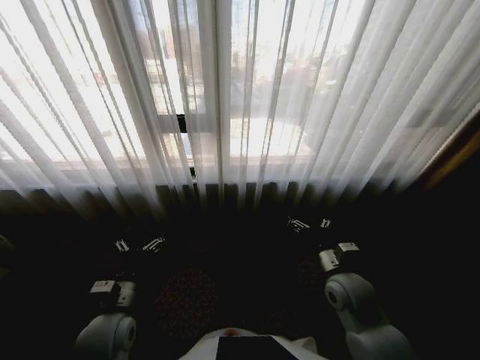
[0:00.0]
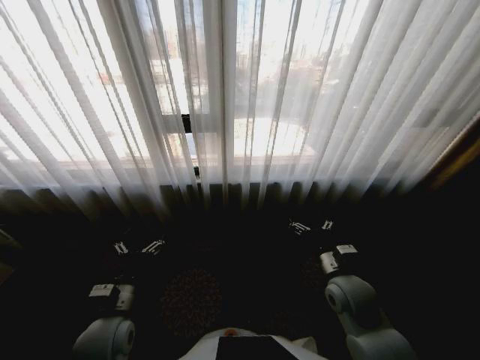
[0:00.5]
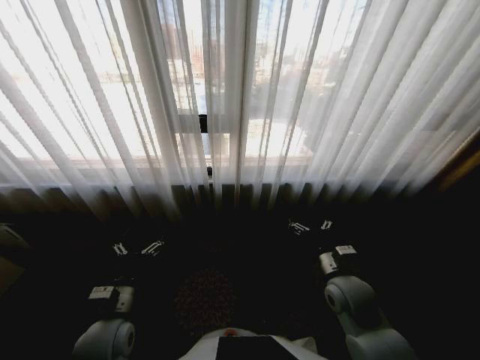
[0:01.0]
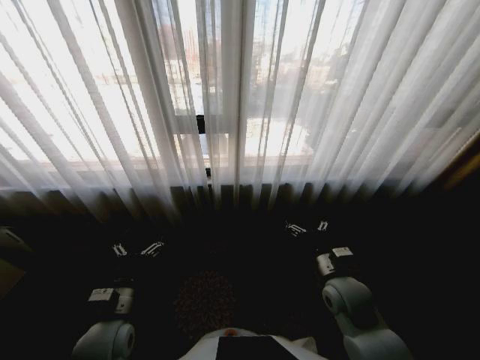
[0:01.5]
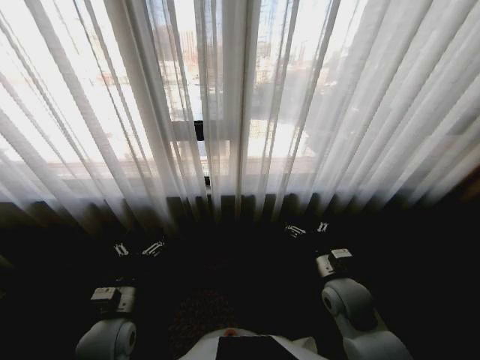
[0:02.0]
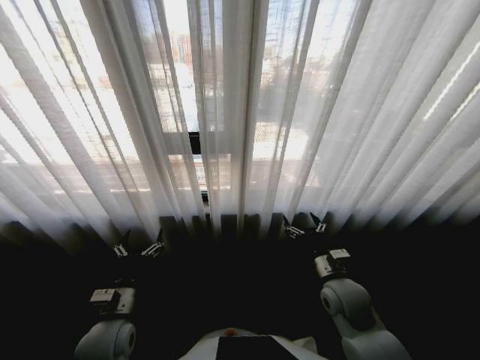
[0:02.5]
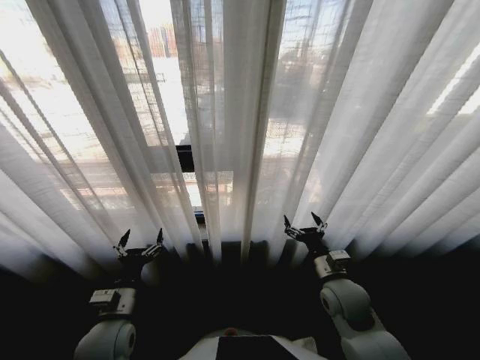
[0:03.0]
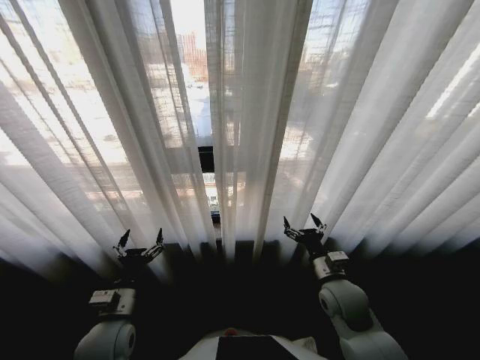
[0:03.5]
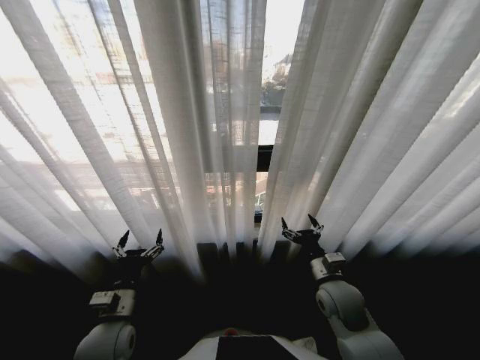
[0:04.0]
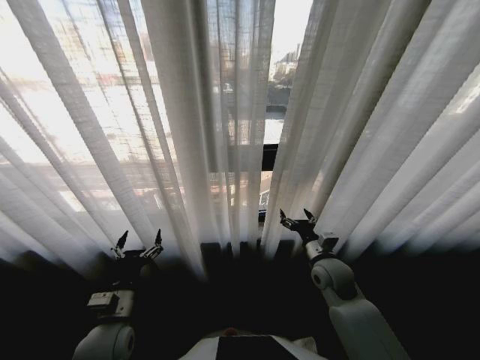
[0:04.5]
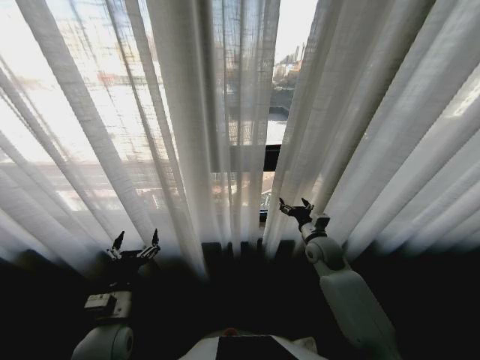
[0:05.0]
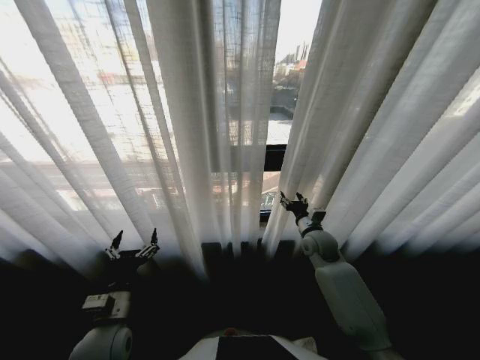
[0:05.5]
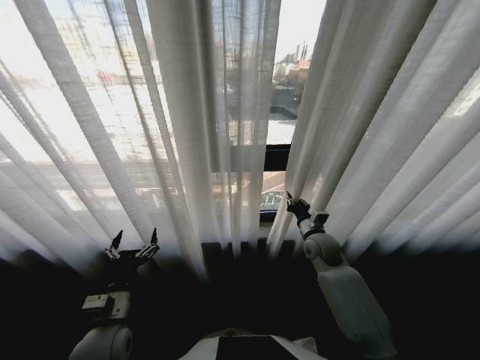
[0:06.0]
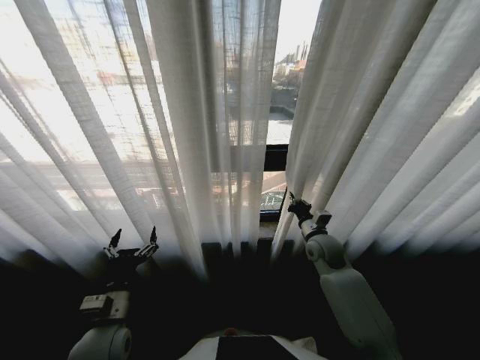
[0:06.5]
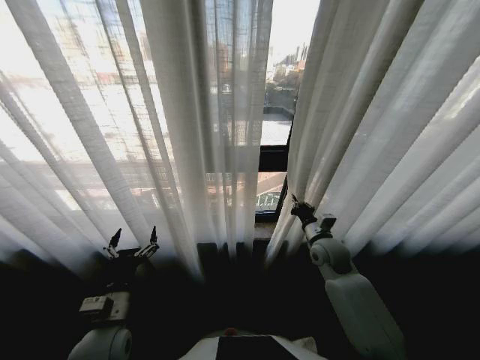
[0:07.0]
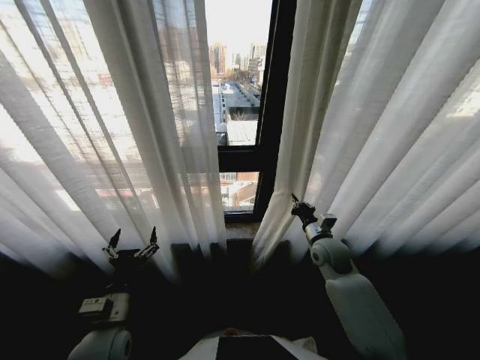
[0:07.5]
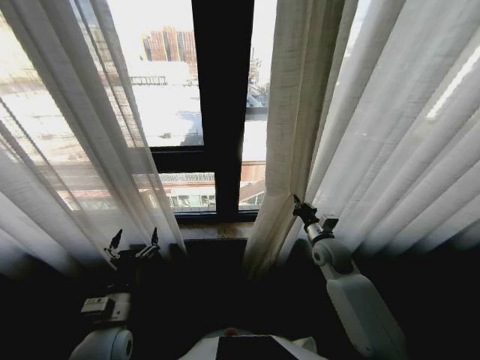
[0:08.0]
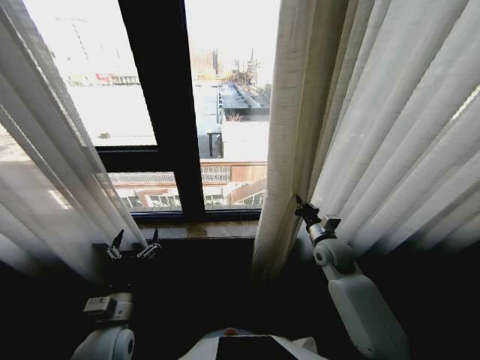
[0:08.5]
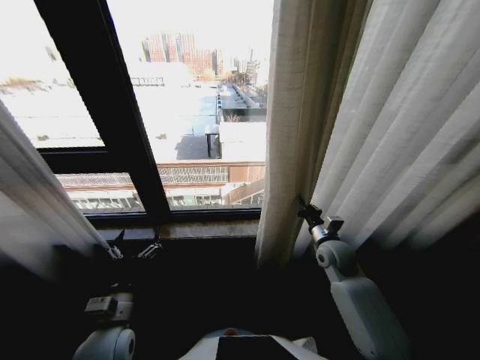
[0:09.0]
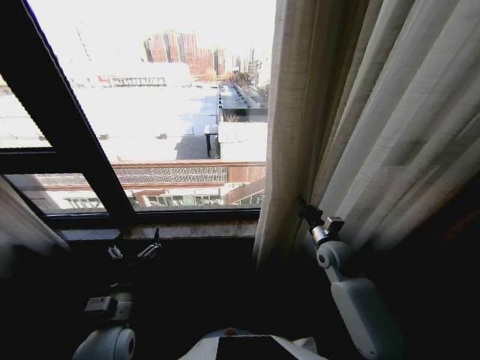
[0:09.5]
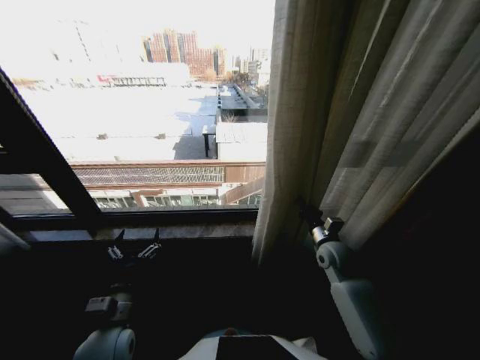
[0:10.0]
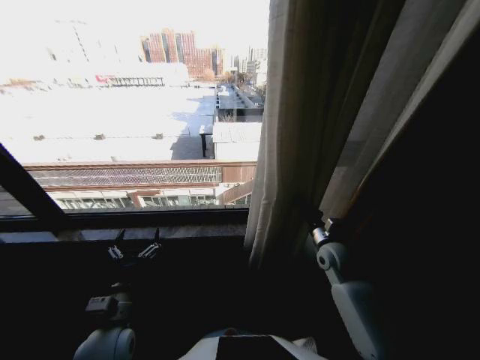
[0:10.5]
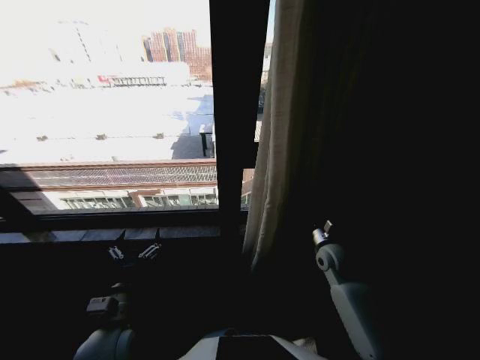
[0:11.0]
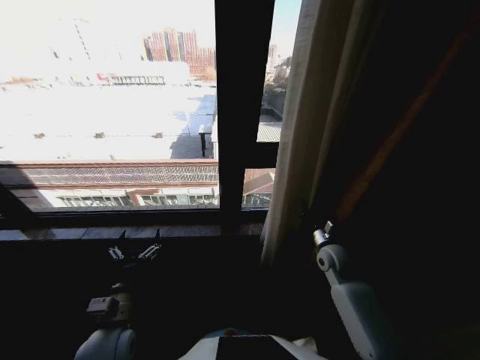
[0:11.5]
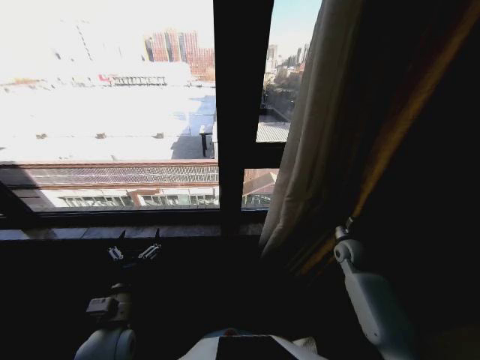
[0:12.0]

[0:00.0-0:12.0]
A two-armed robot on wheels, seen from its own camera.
Task of the whole recording: Open the curtains by pulling them apart, changing their state from closed to fully open.
0:04.0 to 0:06.0: The right gripper moves forward, approximately 15 cm, and closes its fingers.
0:10.0 to 0:12.0: The right gripper shifts roughly 10 cm to the right.

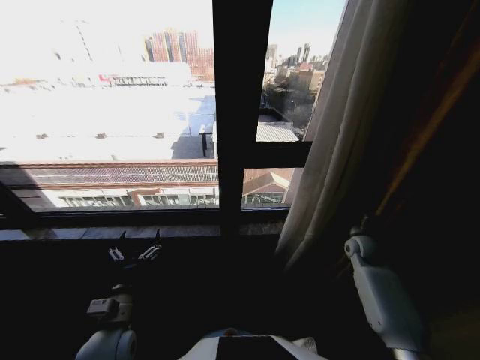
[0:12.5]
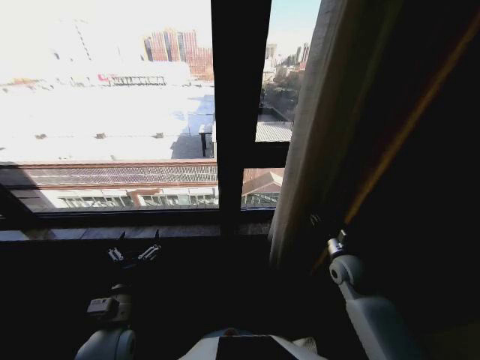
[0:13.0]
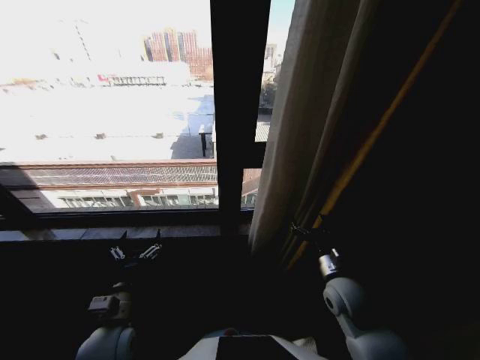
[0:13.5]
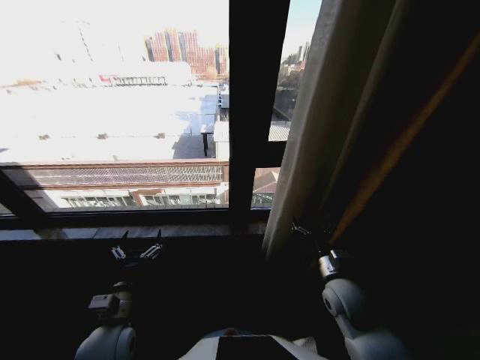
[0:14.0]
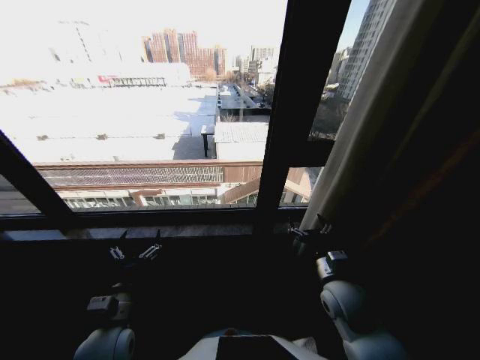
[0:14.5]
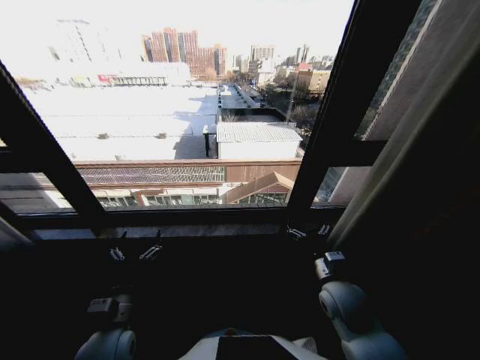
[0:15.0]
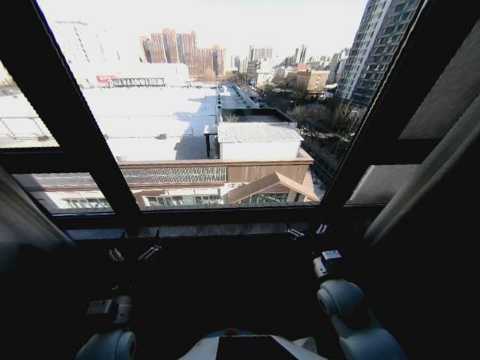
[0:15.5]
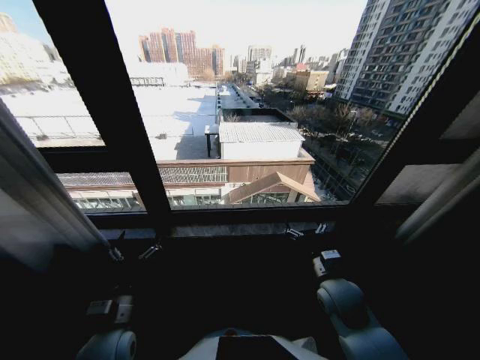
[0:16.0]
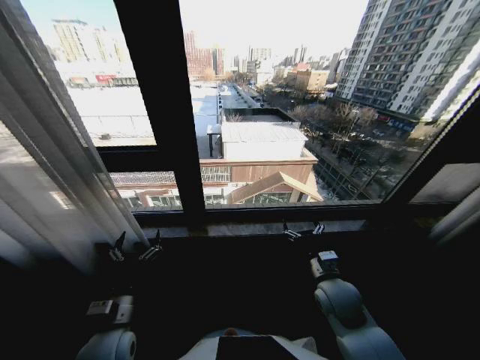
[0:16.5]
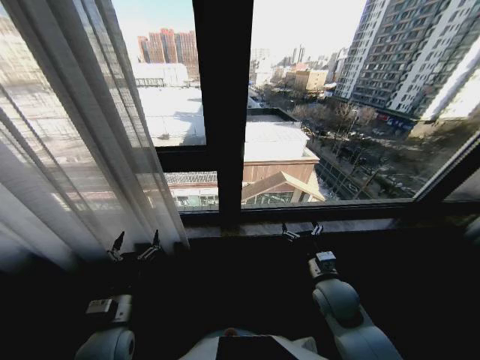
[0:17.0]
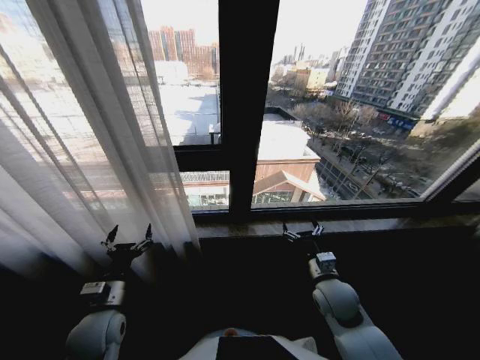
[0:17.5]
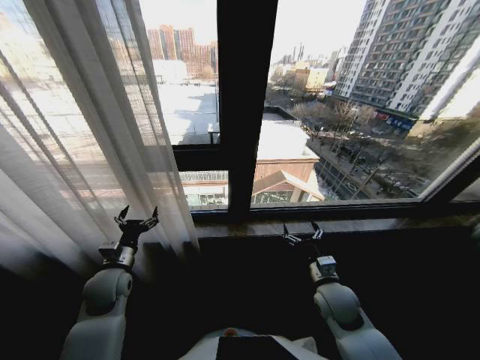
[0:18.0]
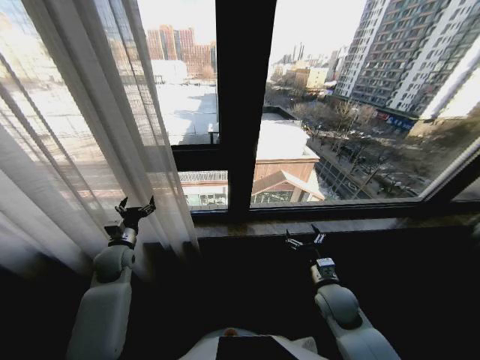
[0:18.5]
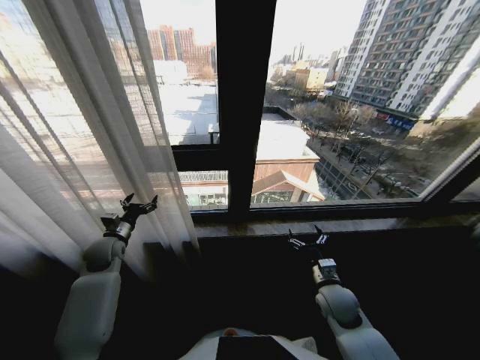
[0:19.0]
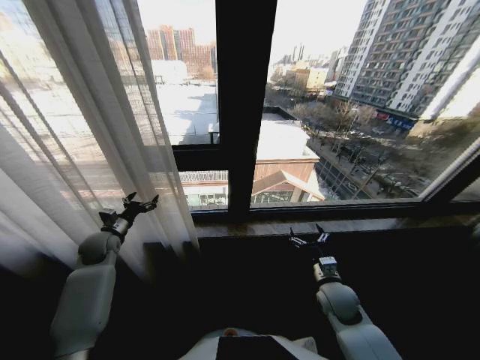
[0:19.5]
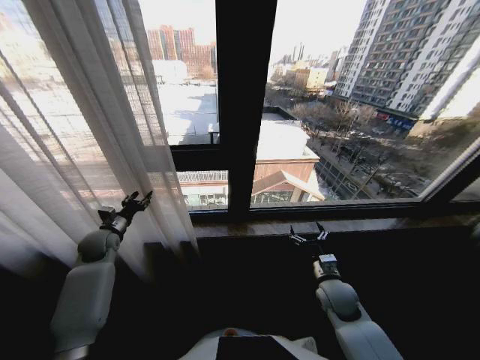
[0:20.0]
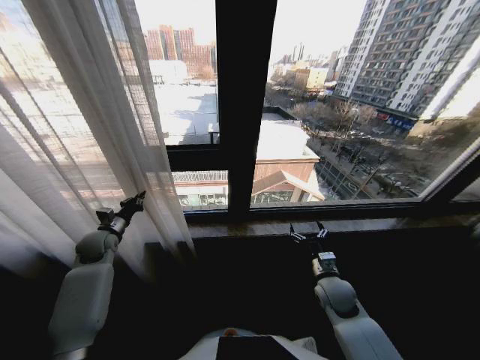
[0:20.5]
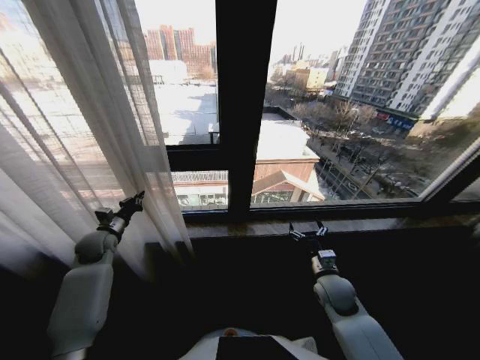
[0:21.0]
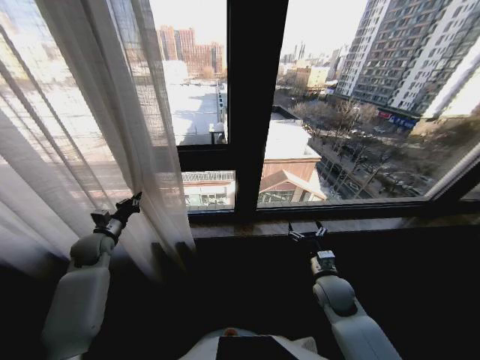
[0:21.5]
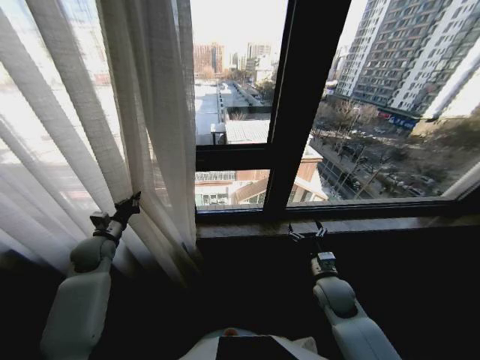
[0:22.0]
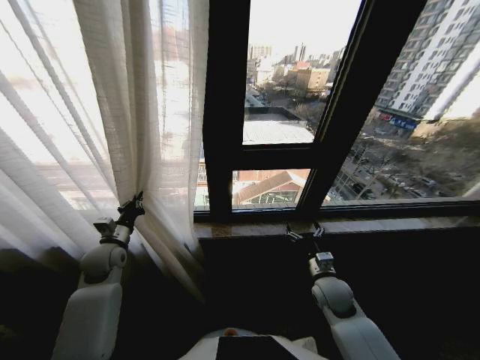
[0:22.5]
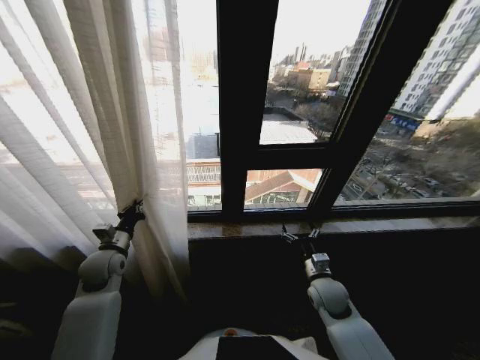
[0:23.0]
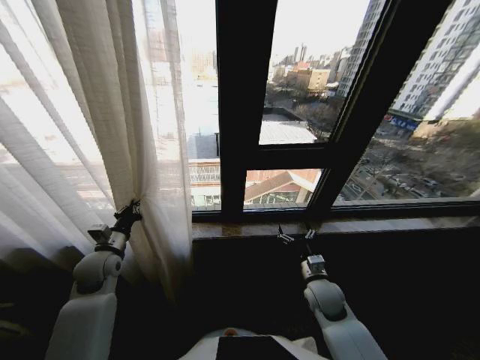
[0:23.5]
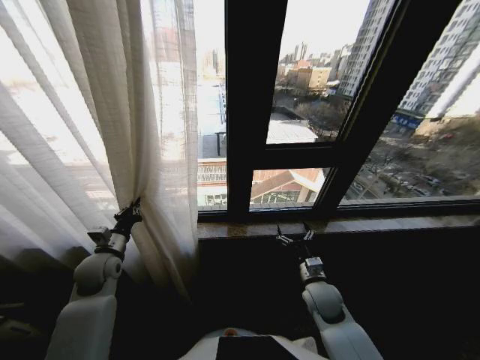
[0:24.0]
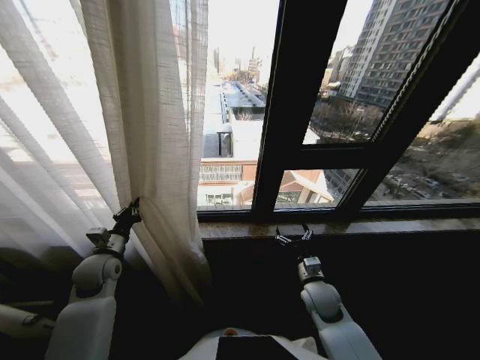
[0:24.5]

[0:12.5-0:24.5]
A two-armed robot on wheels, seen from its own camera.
Task of the whole recording: Open the curtains by pulling them apart, changing their state from closed to fully open.
0:12.5 to 0:14.5: The right gripper shifts approximately 25 cm to the left and backward, and opens up.
0:16.5 to 0:18.5: The right gripper moves some 5 cm; the left gripper is displaced forward by about 20 cm.
0:18.5 to 0:20.5: The left gripper moves to the left, roughly 5 cm, and closes.
0:20.5 to 0:22.5: The left gripper travels to the right and backward by roughly 10 cm.

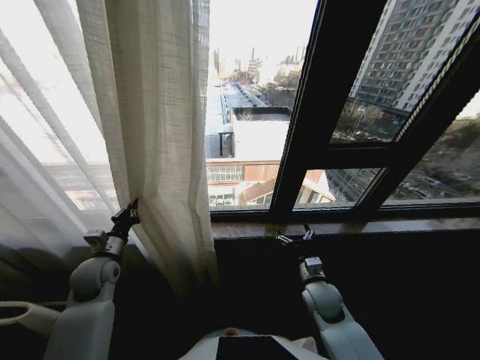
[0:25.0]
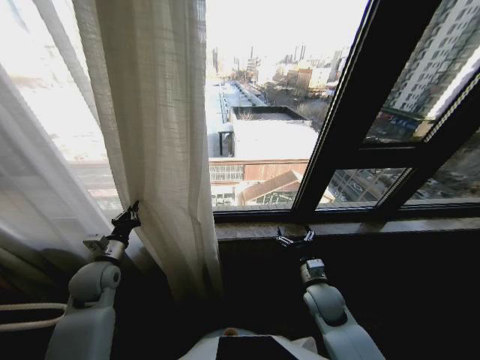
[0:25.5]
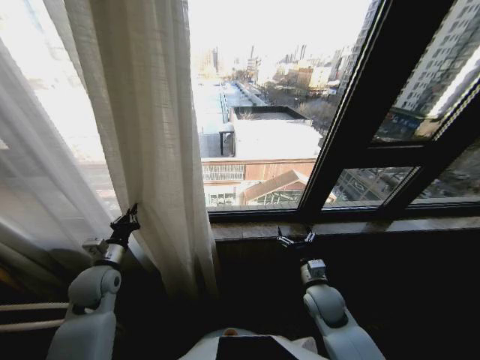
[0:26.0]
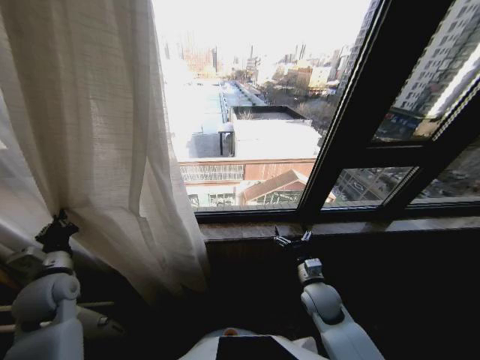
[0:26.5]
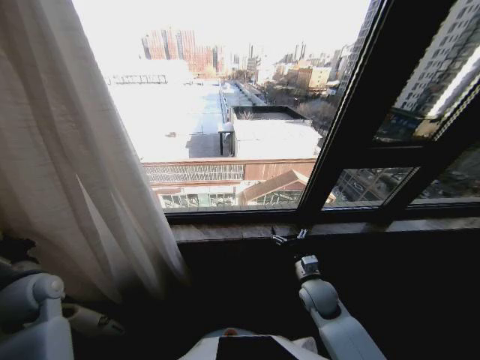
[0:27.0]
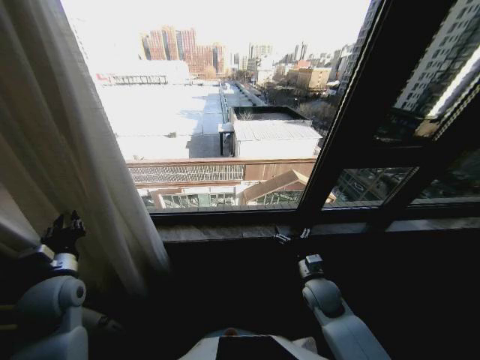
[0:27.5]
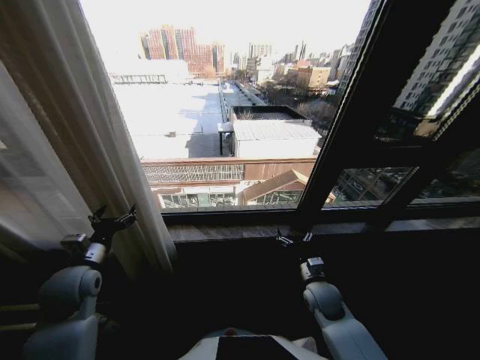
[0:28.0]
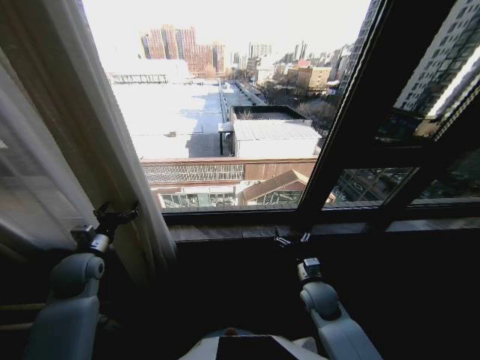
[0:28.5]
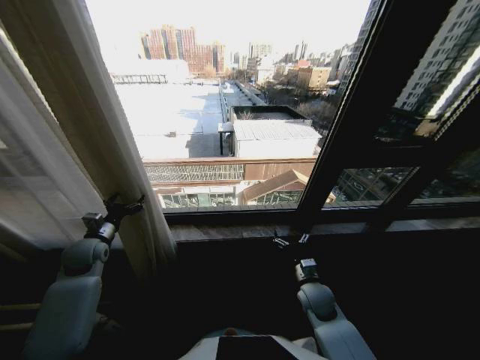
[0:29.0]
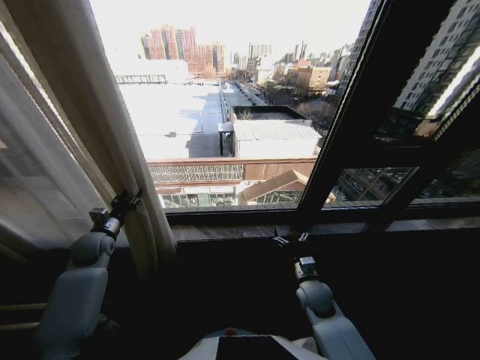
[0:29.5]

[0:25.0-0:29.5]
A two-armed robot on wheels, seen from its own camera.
Task of the whole recording: Open the curtains by pulling them apart, changing their state from closed to fully open.
0:25.0 to 0:27.0: The left gripper heads to the left and backward, covering roughly 10 cm.
0:27.0 to 0:29.5: The left gripper moves forward, roughly 15 cm, and opens up.
